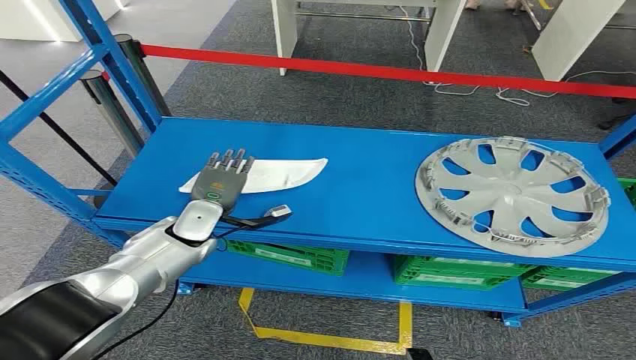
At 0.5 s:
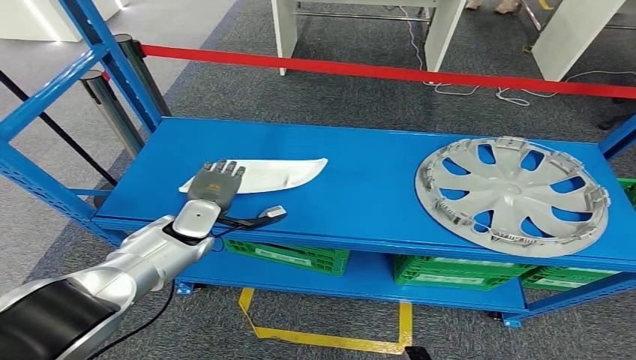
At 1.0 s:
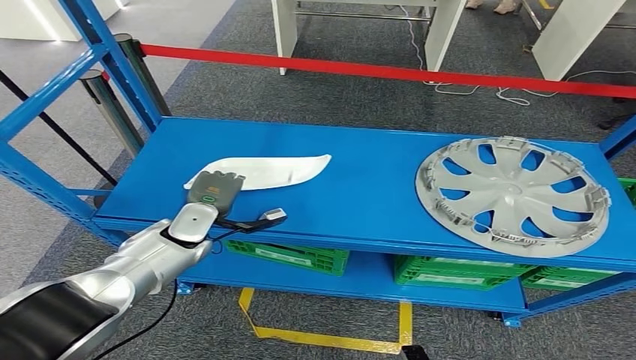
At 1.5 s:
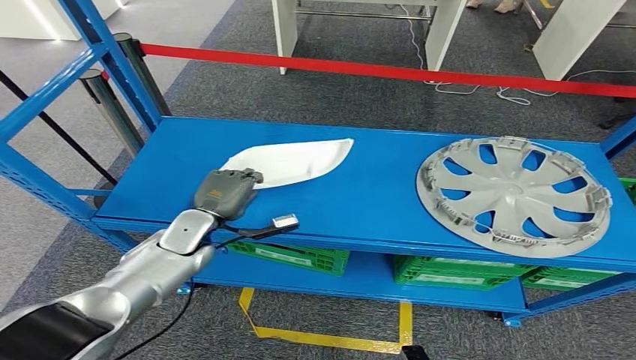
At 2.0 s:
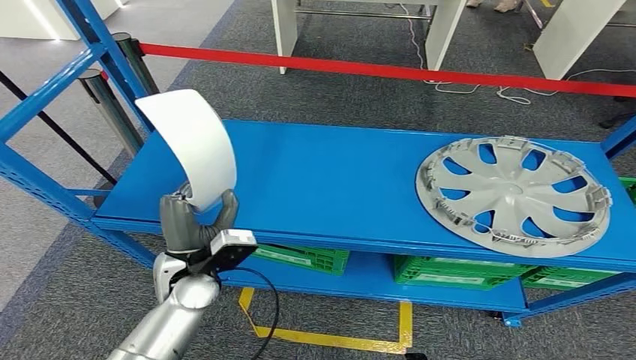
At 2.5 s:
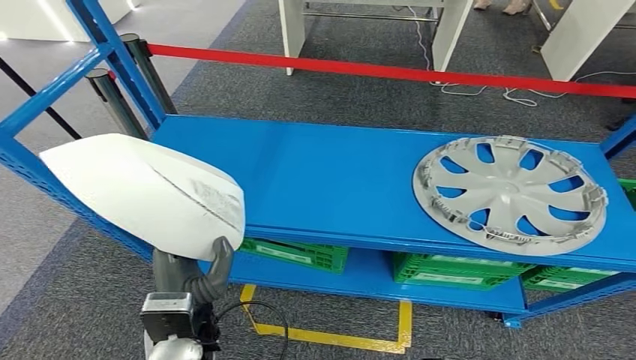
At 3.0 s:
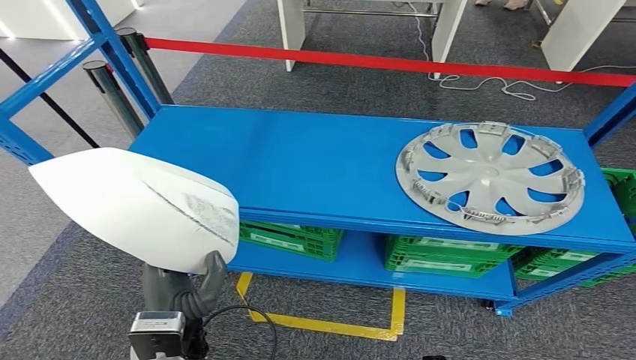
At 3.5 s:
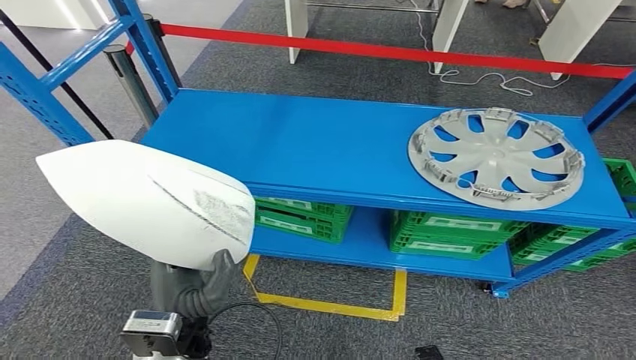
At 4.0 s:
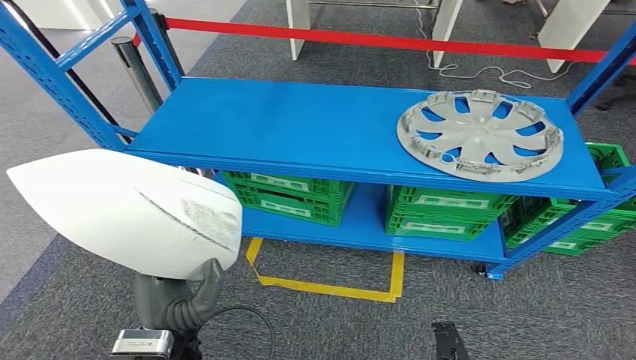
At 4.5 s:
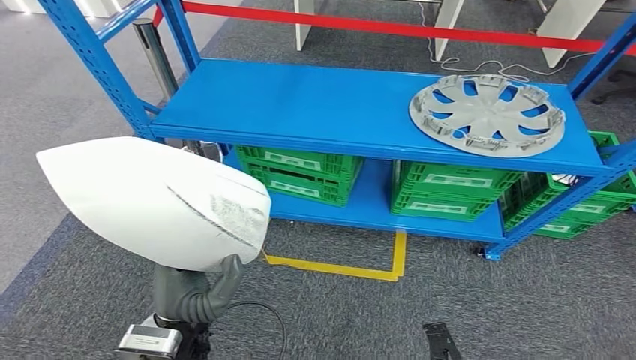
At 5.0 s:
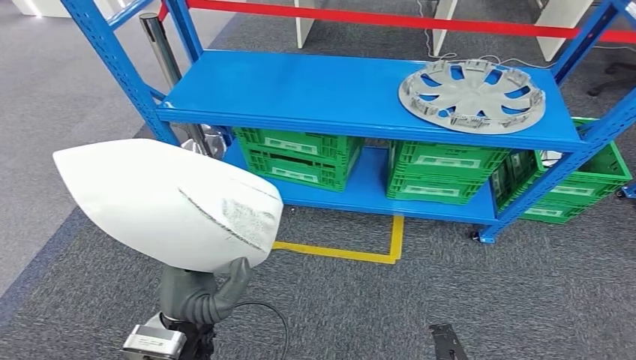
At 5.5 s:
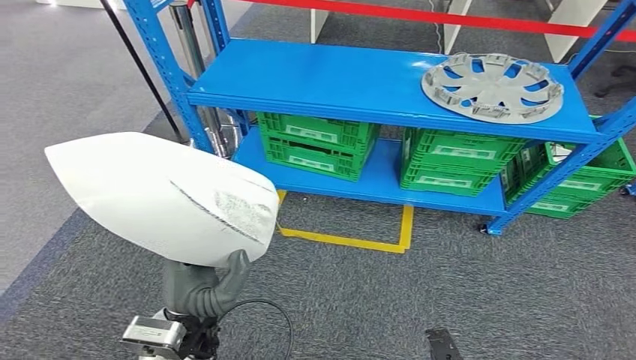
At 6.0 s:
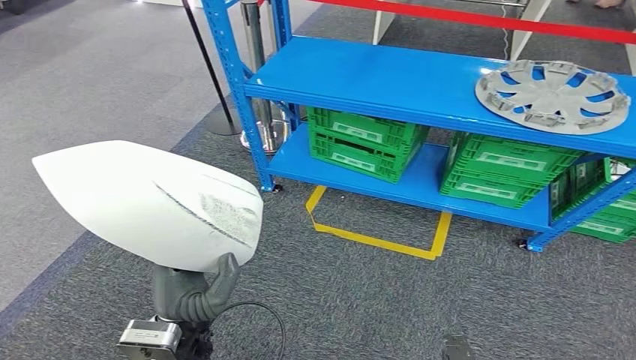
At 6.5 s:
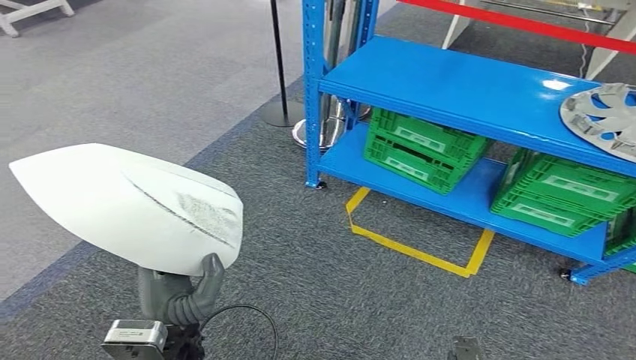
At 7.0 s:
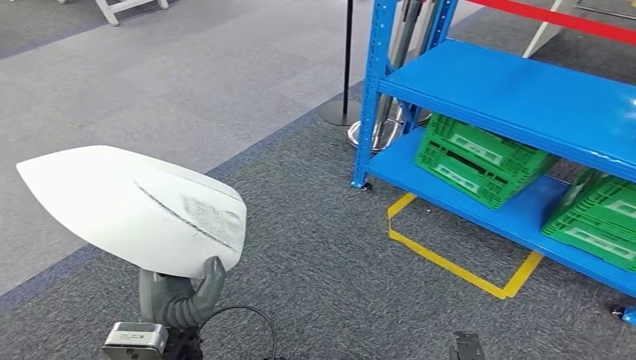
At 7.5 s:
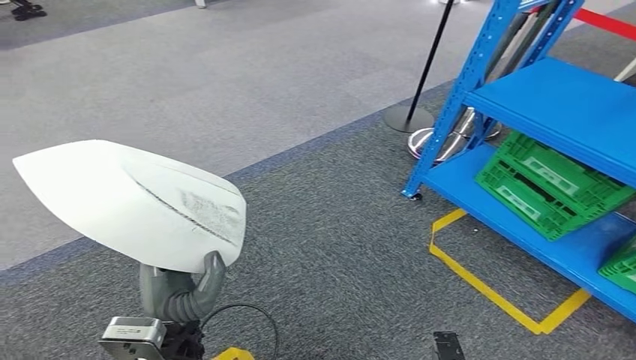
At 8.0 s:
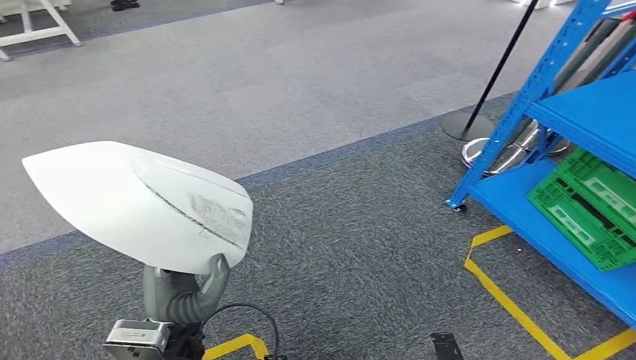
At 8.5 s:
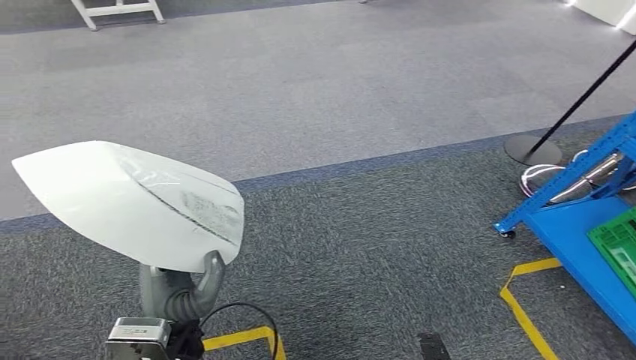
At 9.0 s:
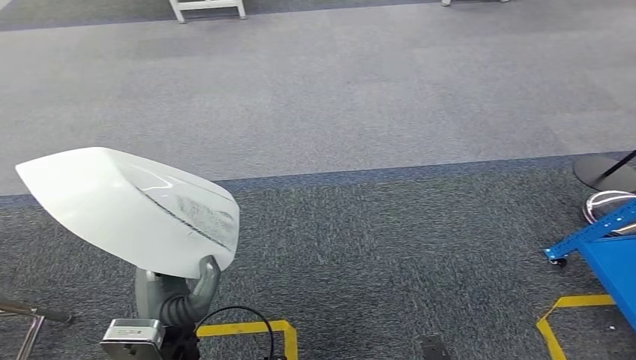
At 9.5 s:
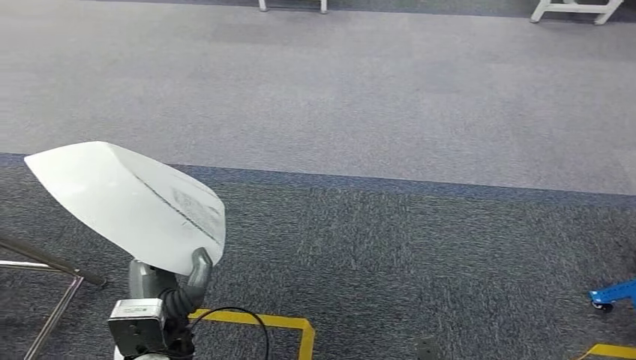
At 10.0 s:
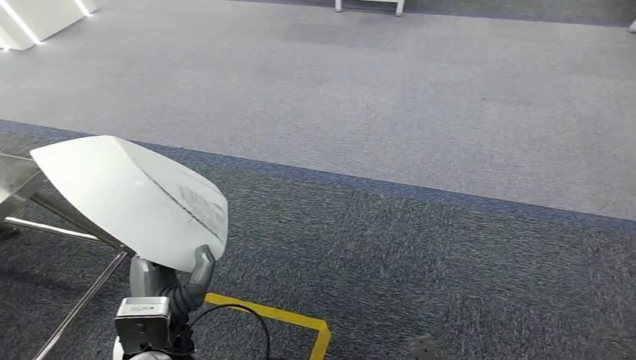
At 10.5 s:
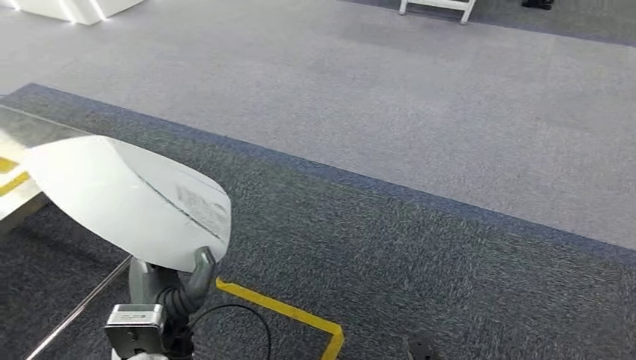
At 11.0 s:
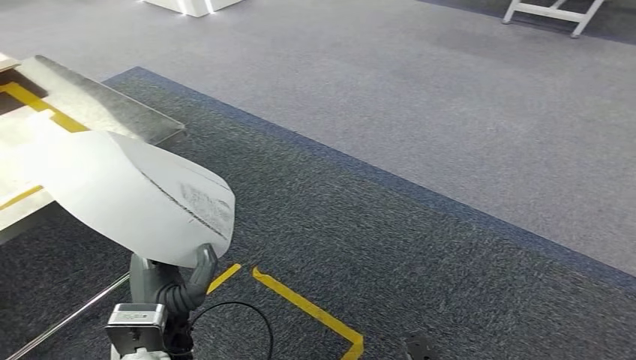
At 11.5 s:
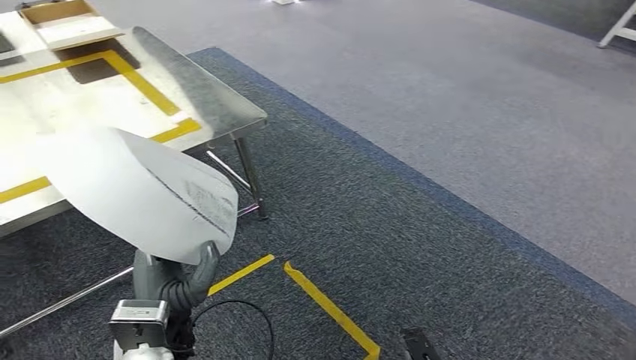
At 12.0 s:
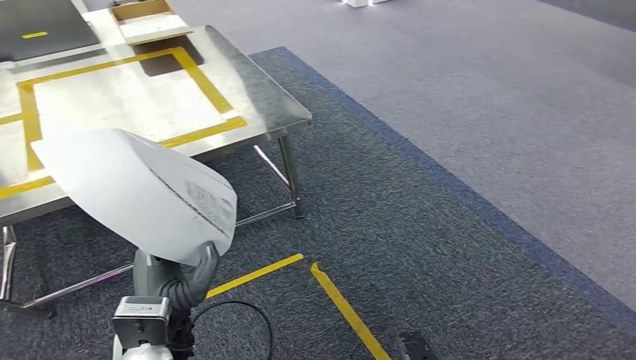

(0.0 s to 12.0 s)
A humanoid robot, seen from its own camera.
Step, 0.0 s - 2.0 s: Pick up the small parts from the shelf.

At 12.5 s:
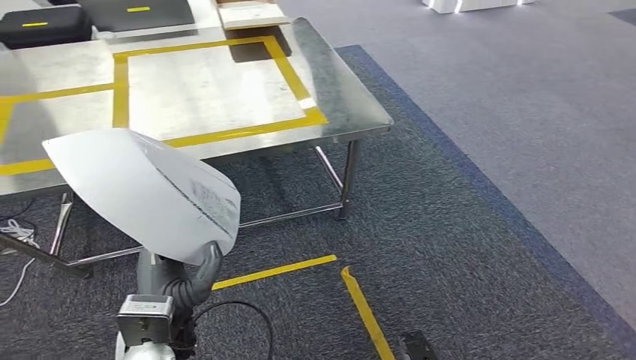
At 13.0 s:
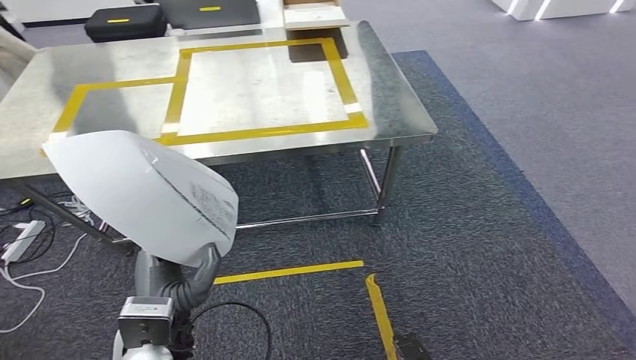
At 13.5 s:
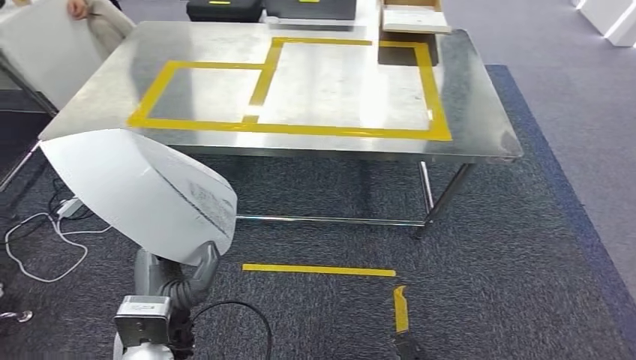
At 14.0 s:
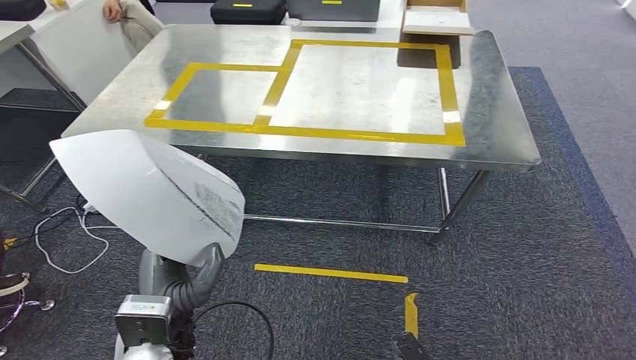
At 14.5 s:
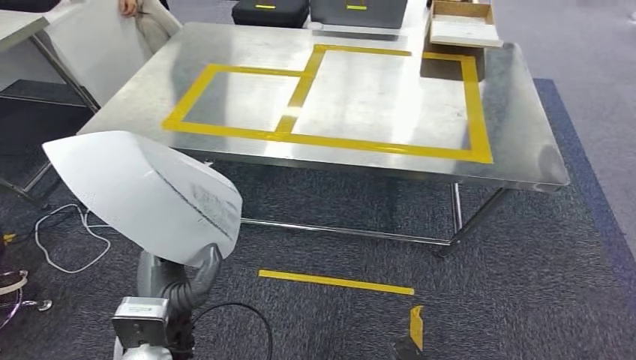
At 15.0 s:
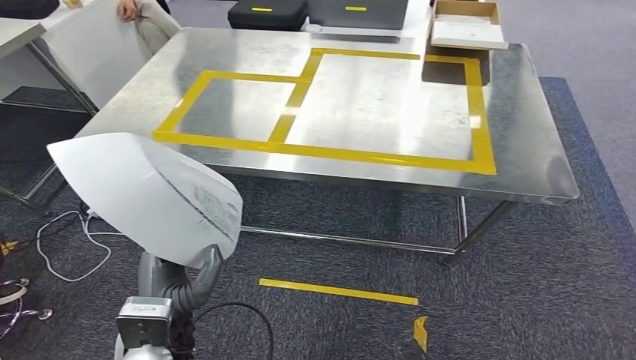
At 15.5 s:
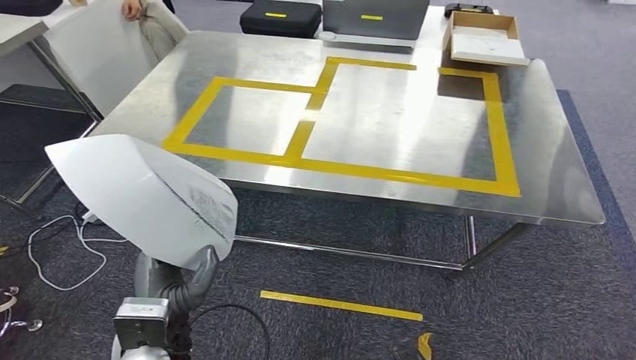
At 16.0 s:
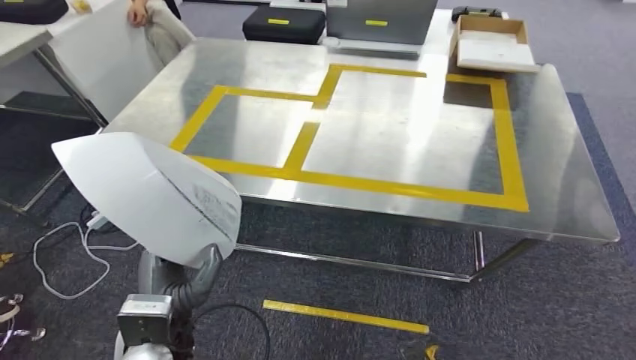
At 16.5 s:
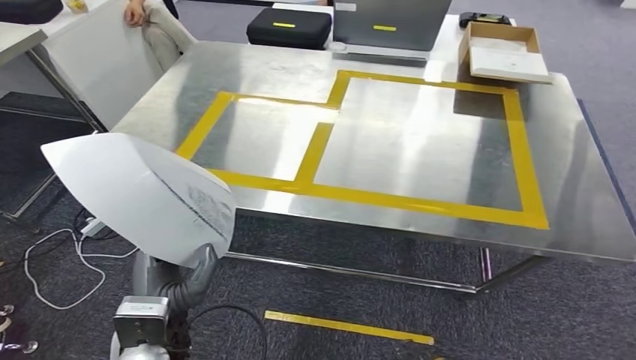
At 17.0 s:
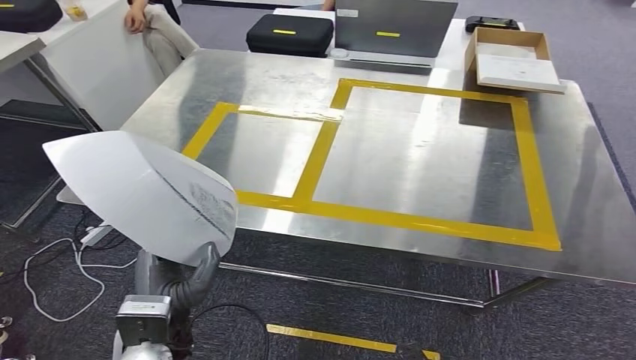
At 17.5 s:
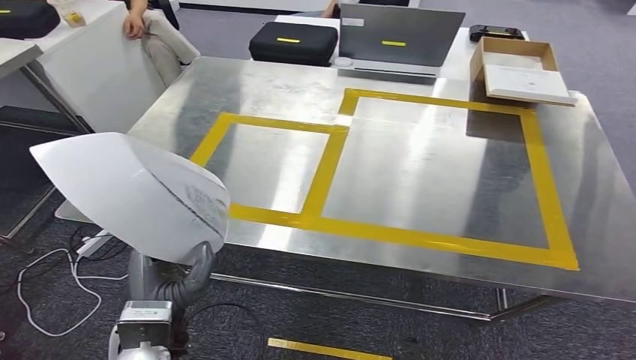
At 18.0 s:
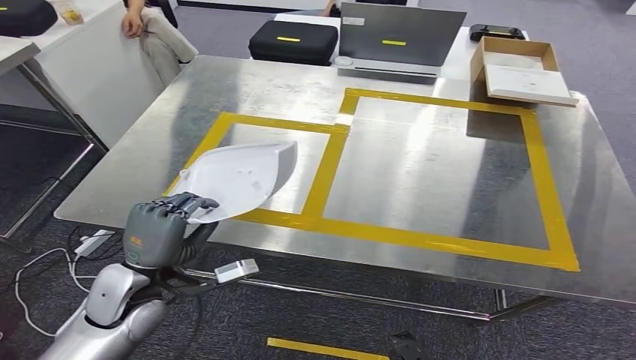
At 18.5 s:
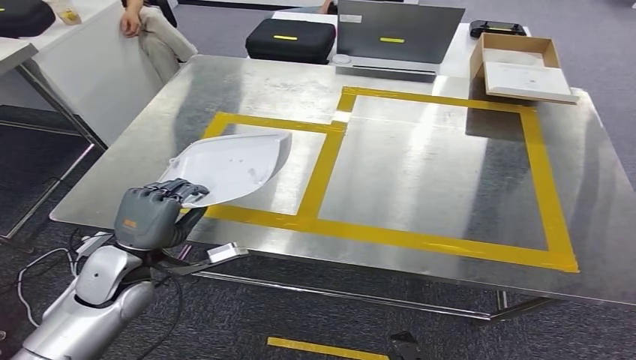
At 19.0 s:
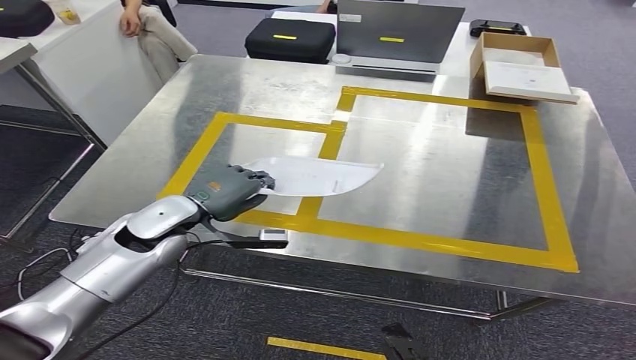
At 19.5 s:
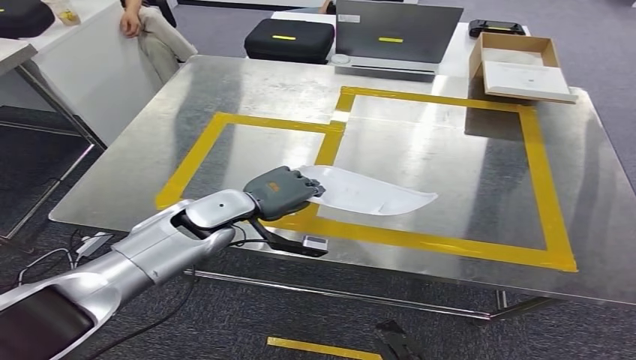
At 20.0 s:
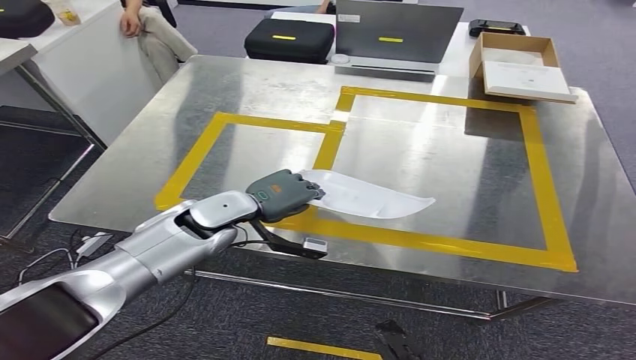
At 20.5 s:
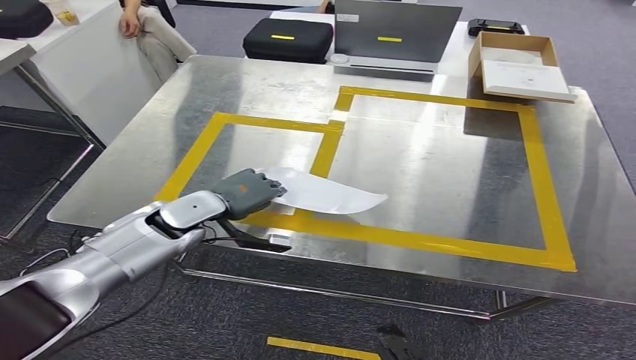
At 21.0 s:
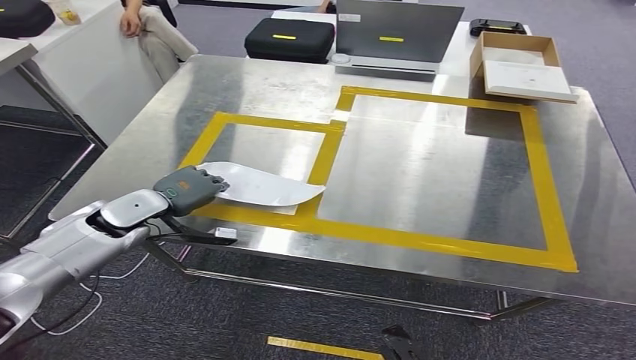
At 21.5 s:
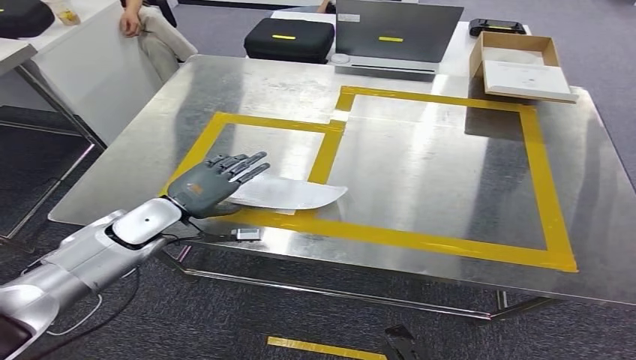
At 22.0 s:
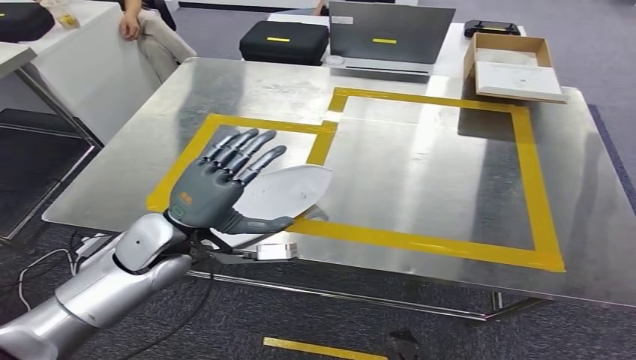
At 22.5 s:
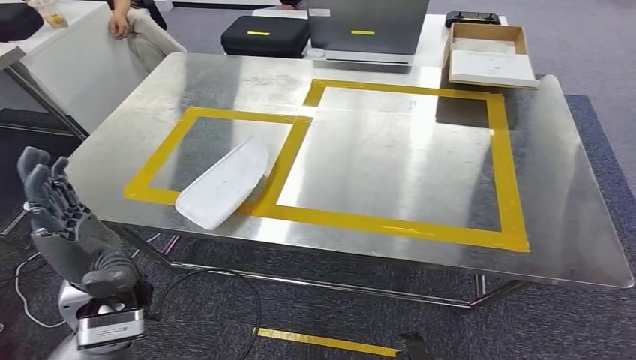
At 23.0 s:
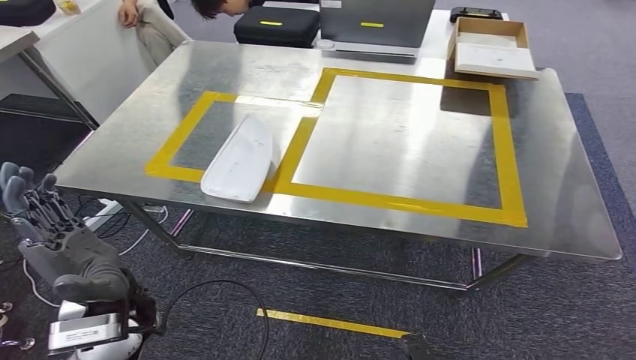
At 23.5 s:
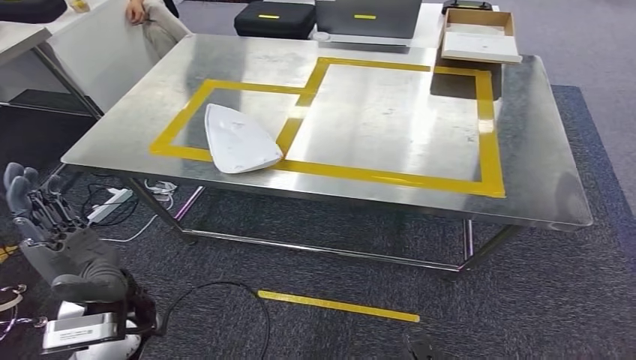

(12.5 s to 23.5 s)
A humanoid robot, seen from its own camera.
Step, 12.5 s - 15.5 s: Move the small parts to the workbench.
Step, 16.5 s - 22.0 s: Insert the small parts into the corresponding slots on the workbench.
20.0 s - 21.5 s: The left hand is displaced to the left by some 10 cm.
